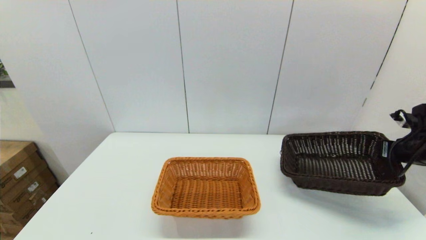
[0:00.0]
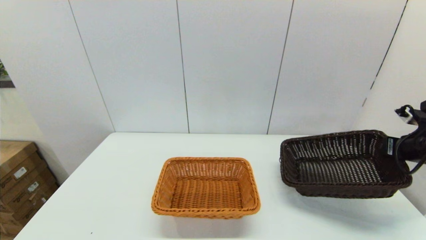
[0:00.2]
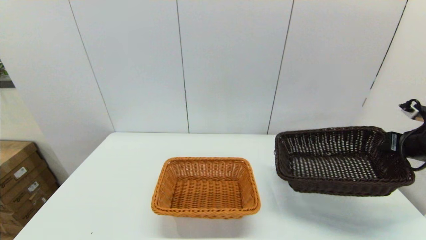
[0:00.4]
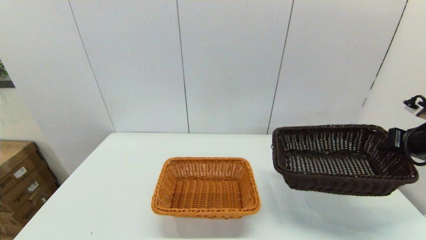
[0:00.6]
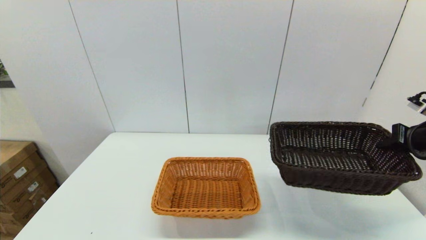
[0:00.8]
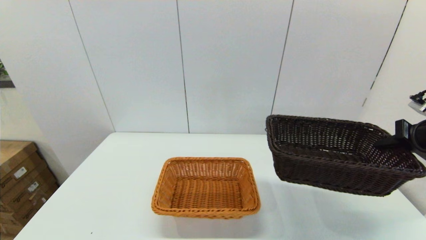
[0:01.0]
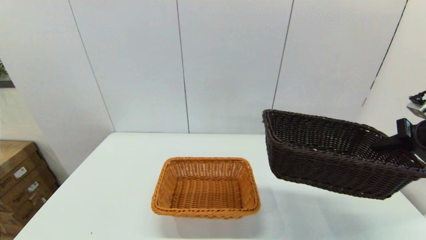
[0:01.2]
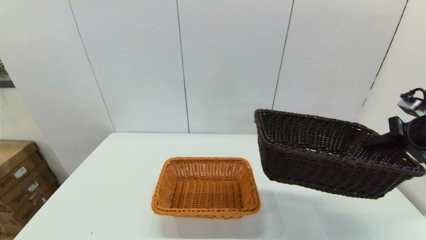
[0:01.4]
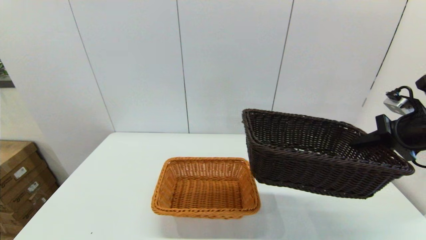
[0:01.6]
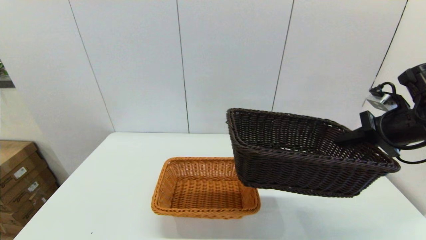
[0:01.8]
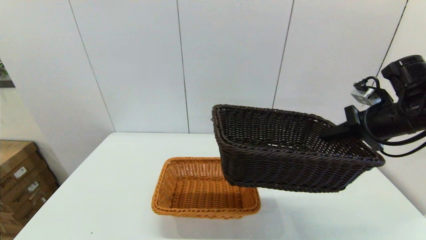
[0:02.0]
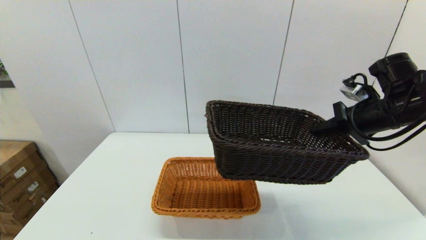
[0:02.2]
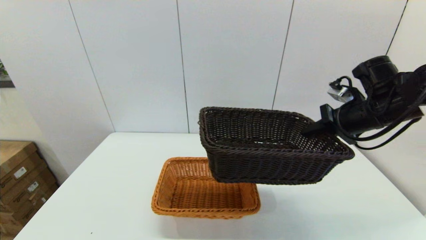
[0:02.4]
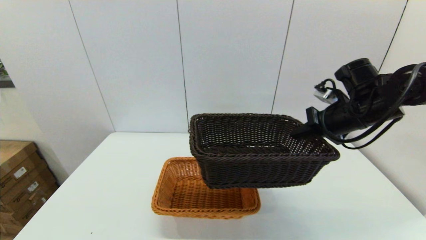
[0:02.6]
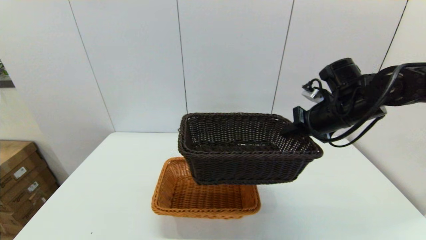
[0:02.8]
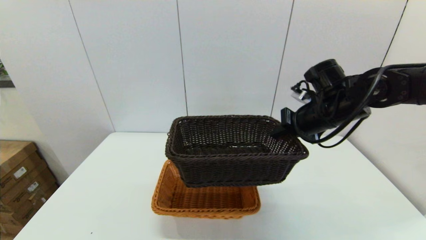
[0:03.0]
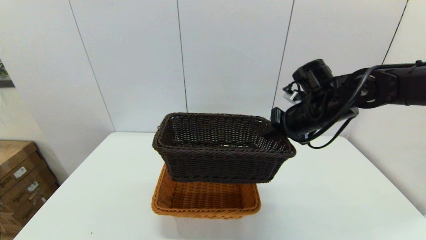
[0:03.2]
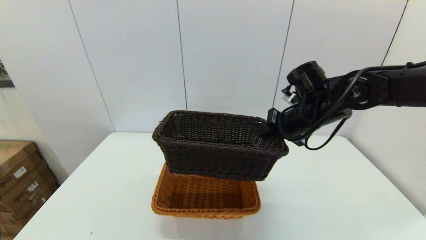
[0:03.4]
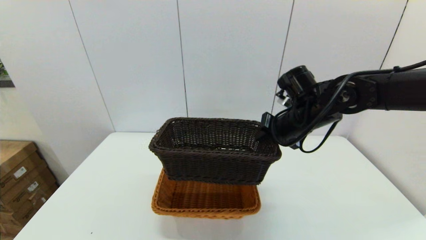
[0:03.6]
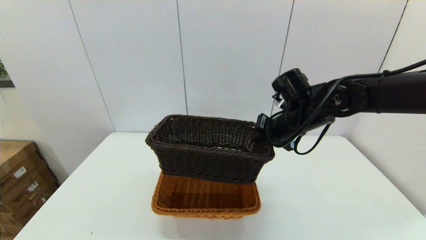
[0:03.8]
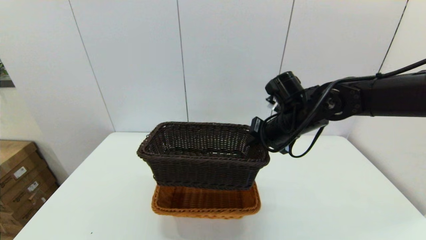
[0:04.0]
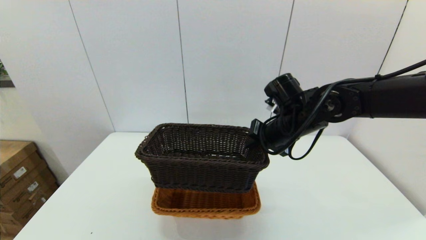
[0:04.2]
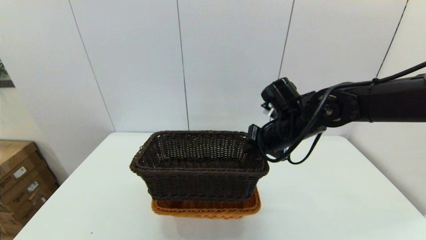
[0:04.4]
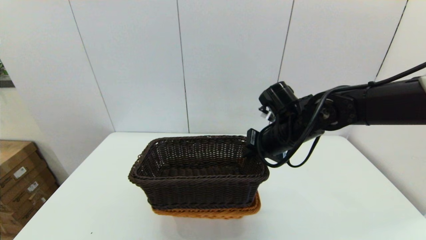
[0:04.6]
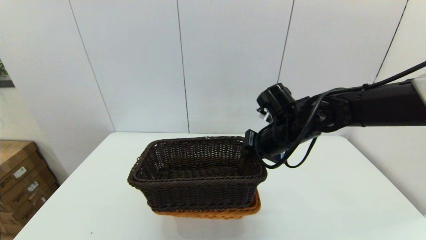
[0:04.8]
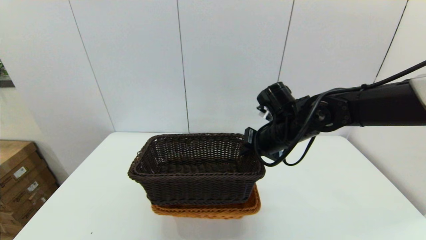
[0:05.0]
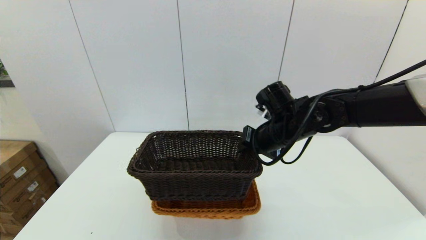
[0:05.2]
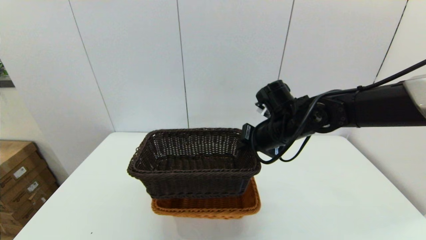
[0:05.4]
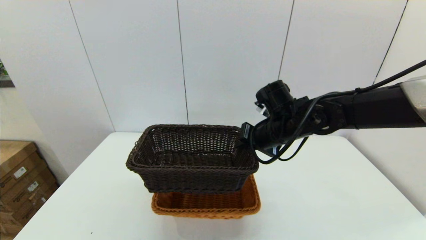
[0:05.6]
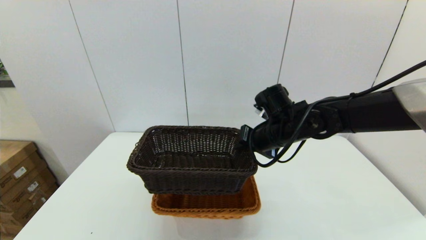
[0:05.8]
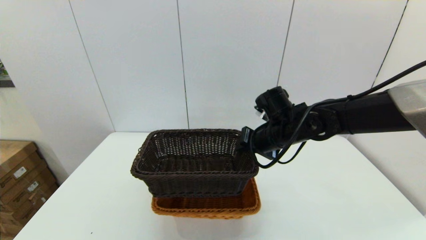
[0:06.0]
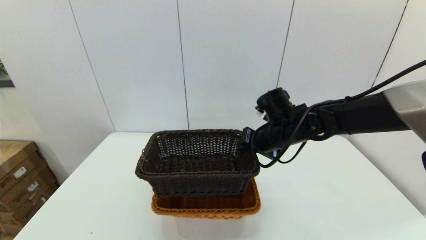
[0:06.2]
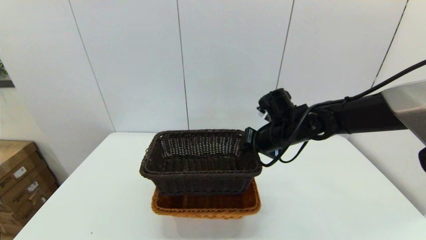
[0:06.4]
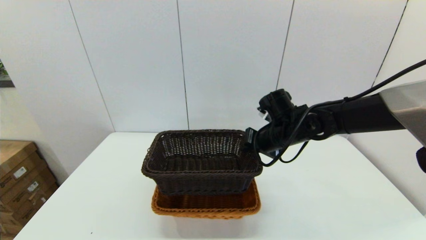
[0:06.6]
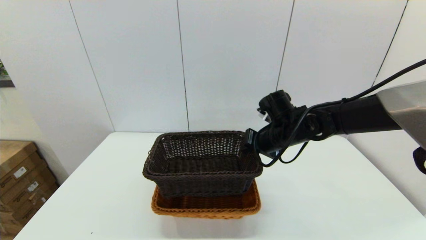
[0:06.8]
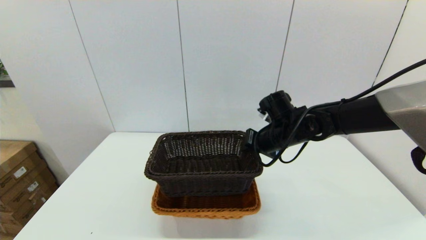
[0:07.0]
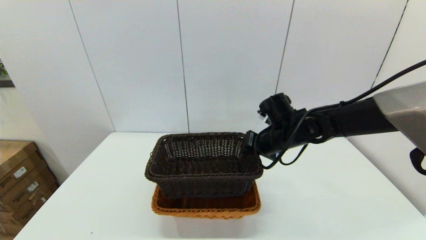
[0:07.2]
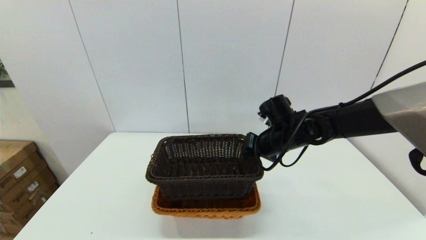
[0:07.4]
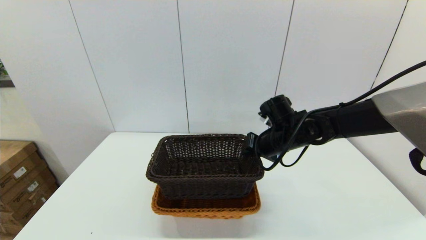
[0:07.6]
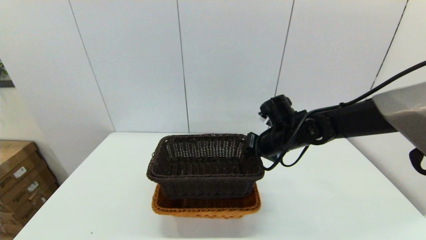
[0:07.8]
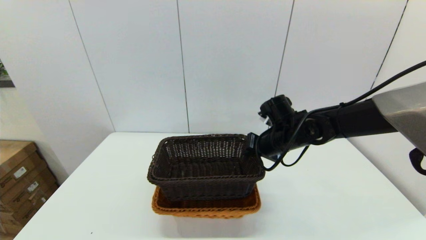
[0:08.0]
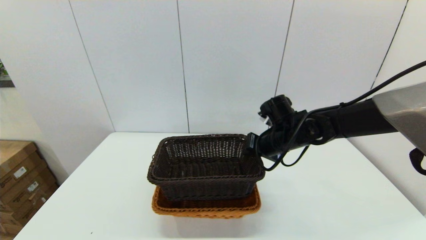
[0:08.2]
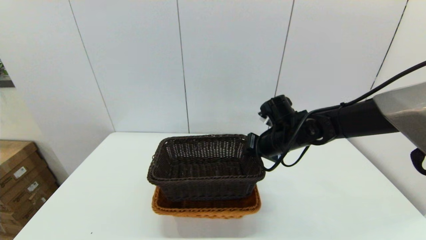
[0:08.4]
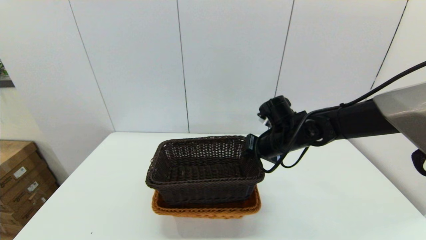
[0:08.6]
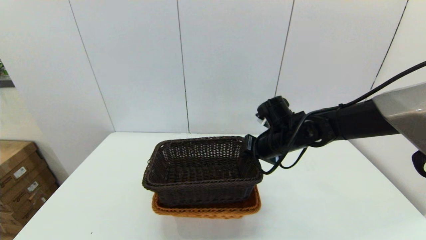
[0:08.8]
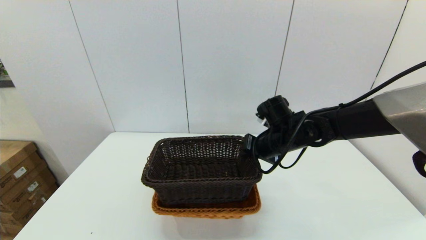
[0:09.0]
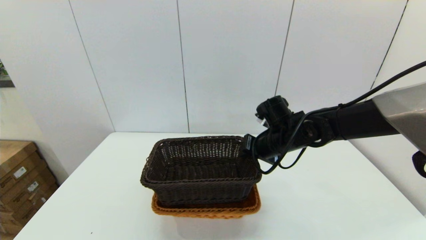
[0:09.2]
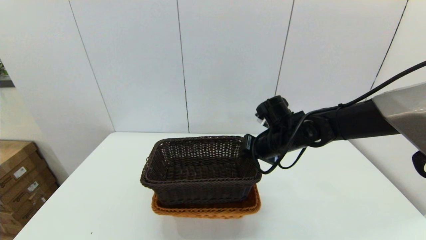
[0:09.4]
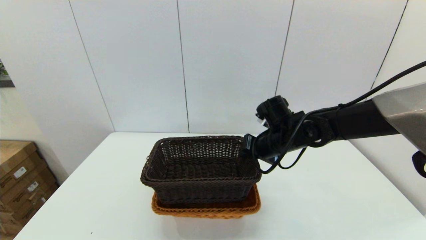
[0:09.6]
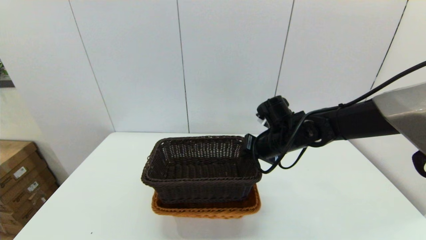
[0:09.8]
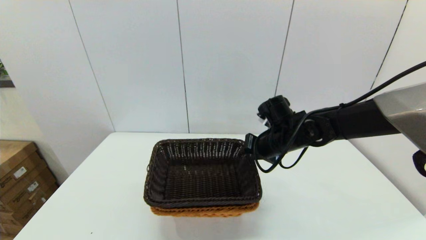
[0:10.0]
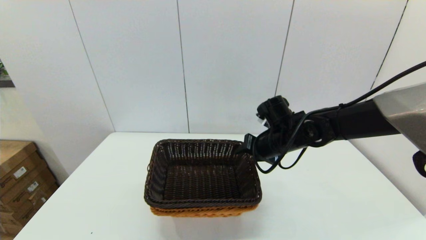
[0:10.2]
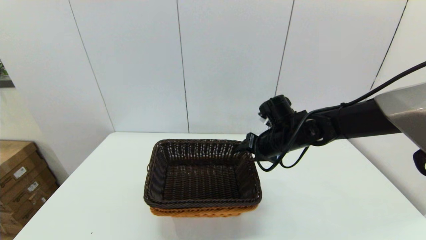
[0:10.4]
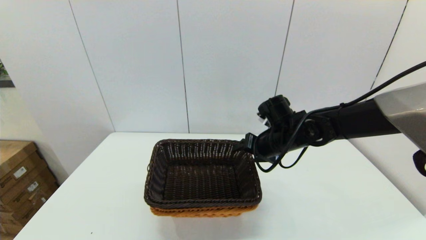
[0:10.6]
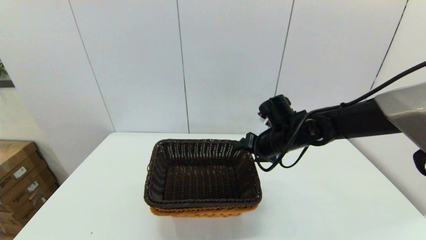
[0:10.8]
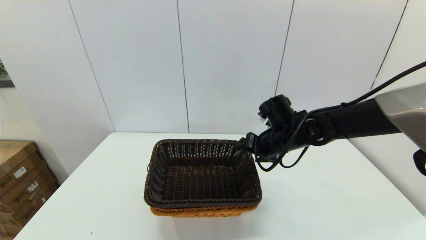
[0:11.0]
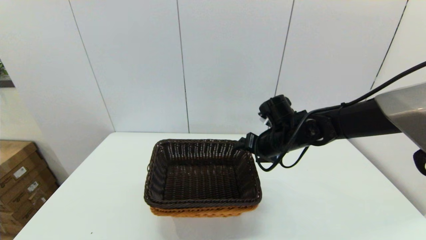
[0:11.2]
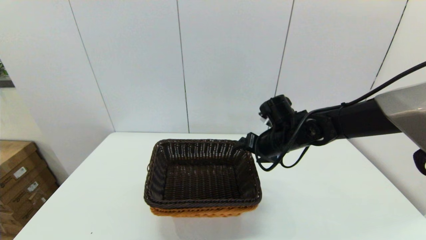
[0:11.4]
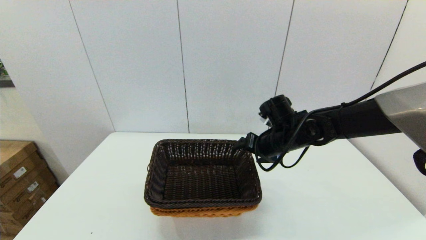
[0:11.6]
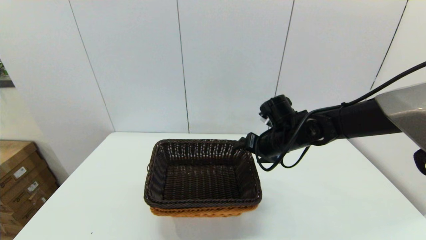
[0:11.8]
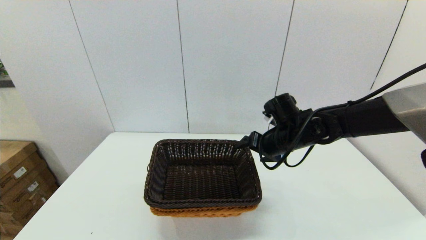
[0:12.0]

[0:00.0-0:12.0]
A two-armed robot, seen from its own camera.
Task of the whole recording: stack a basket on top of another basket.
0:00.0 to 0:01.6: The right gripper is displaced upward and to the left by about 10 cm.
0:01.6 to 0:03.0: The right gripper is displaced to the left and forward by some 20 cm.
0:03.0 to 0:04.4: The right gripper heads to the left, covering some 10 cm.
0:04.4 to 0:06.0: The grippers move only a little.
0:06.0 to 0:07.6: There are only small adjustments of the grippers.
0:07.6 to 0:09.0: Both grippers stay put.
0:09.0 to 0:10.4: The right gripper opens.
0:10.4 to 0:12.0: There are only small adjustments of the grippers.

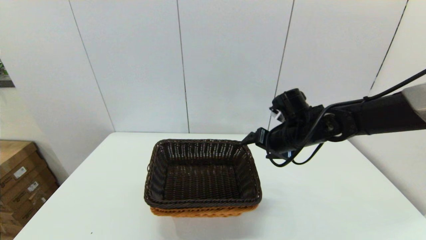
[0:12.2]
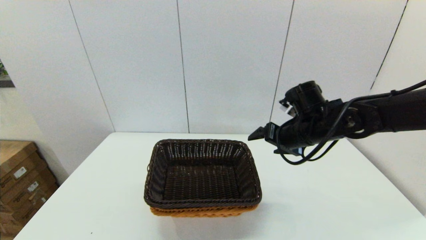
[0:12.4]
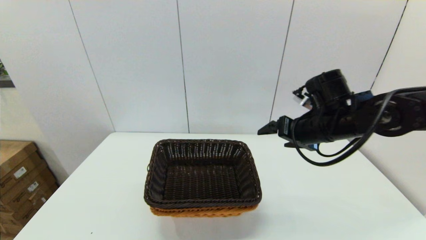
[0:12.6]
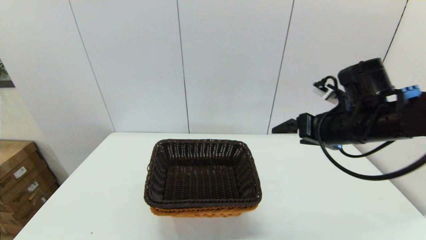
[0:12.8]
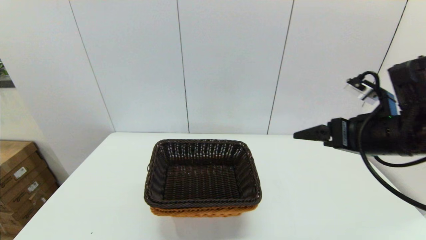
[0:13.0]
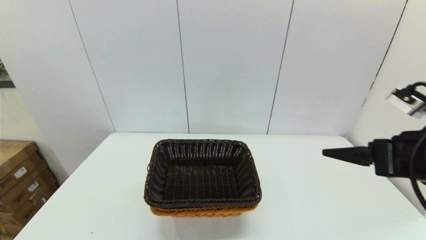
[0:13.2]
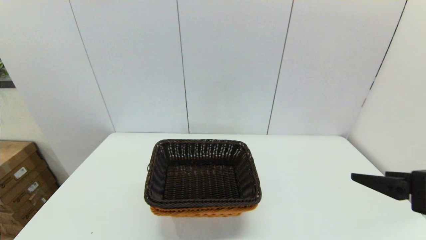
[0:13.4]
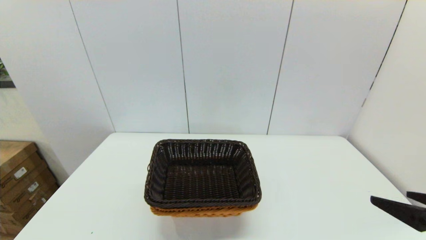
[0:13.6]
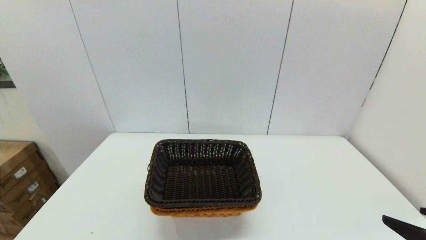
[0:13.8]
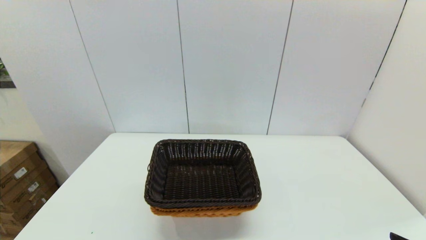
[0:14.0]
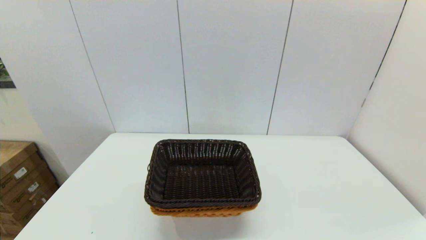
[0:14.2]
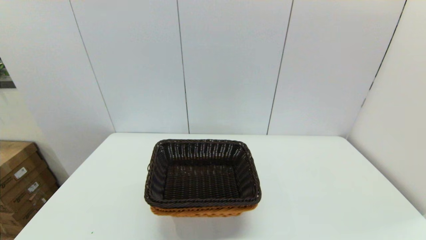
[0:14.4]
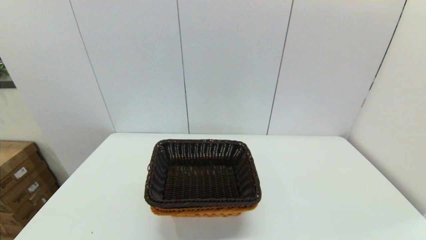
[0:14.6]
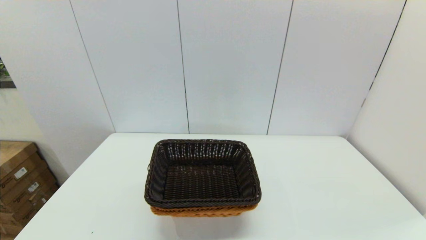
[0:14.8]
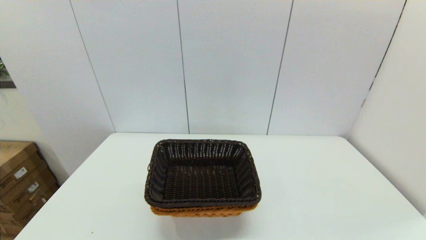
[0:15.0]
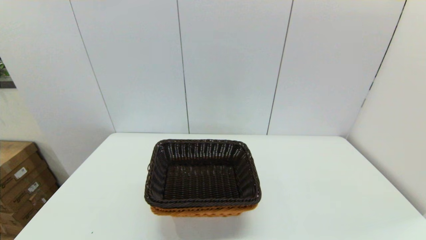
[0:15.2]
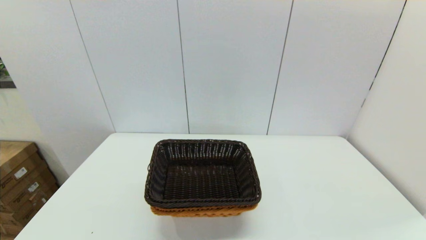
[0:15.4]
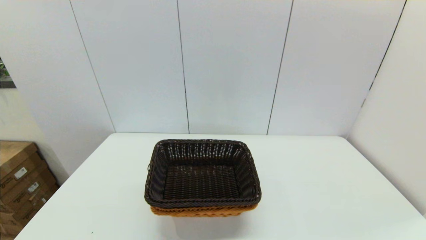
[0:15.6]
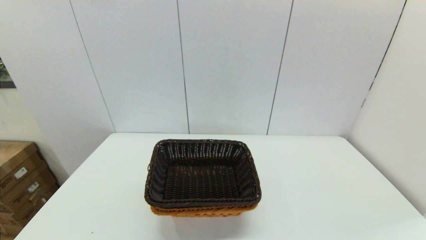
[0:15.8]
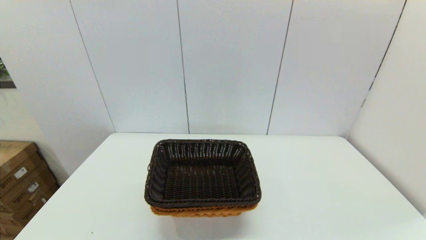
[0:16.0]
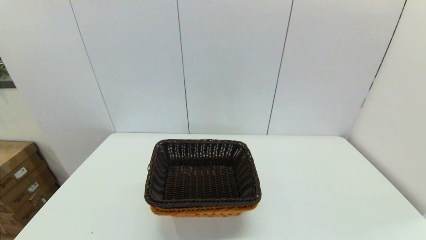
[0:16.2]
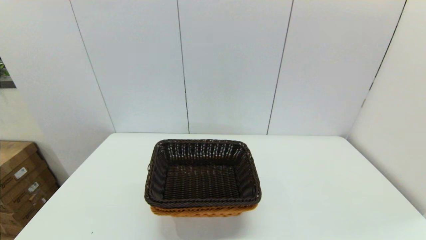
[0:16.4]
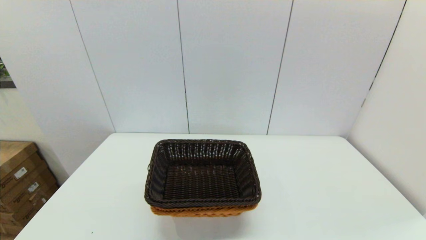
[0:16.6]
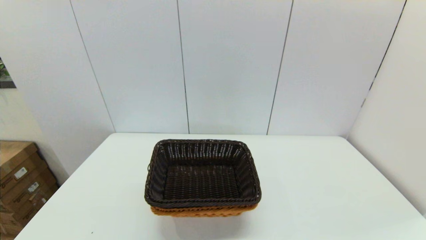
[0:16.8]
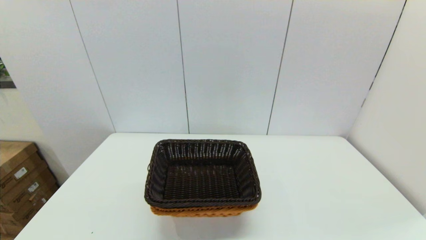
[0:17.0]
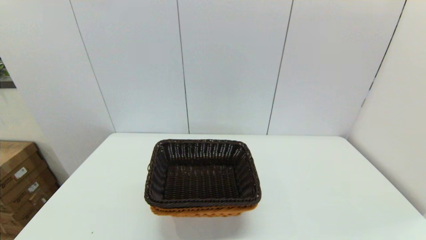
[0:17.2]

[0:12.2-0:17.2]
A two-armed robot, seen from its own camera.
Task of the whole recording: stack a basket on top of another basket.
0:12.2 to 0:13.8: The right gripper travels backward and to the right by roughly 35 cm.
0:13.8 to 0:15.6: The right gripper travels downward and backward by roughly 10 cm.
